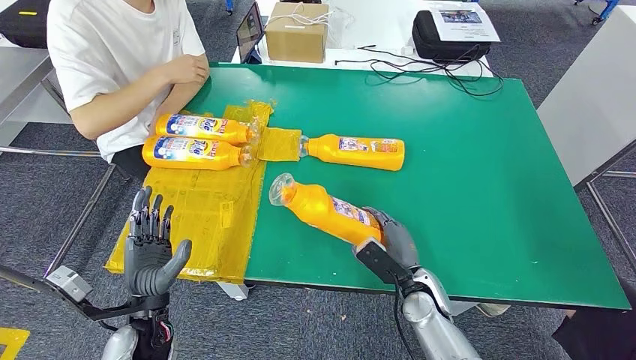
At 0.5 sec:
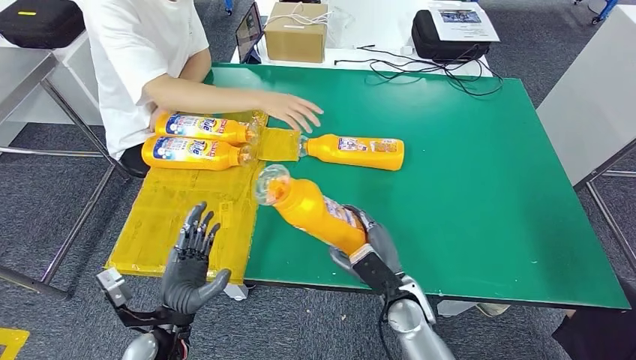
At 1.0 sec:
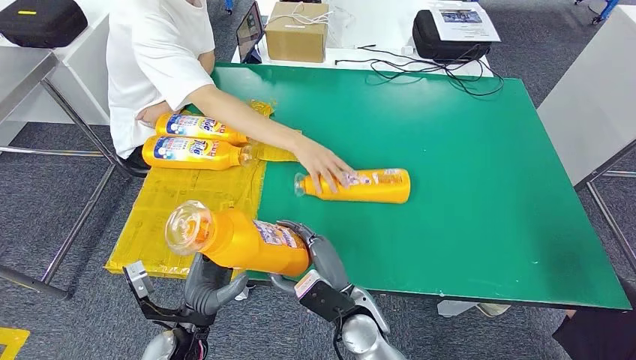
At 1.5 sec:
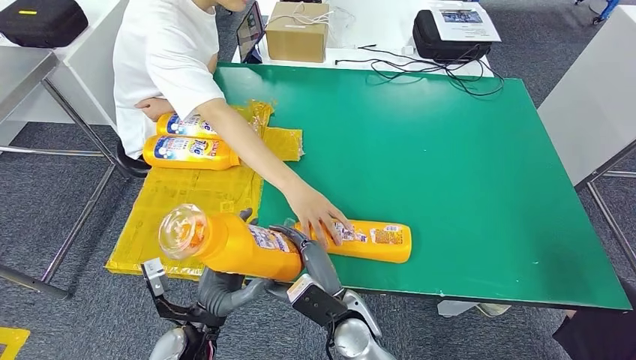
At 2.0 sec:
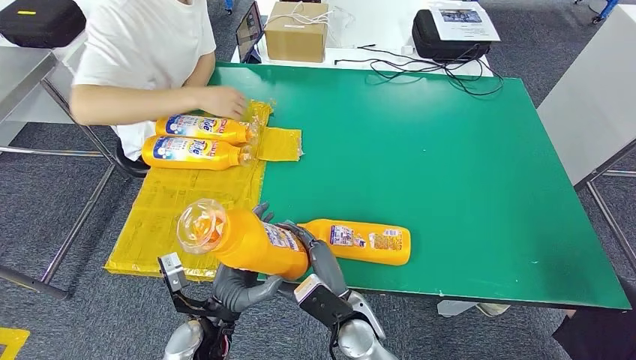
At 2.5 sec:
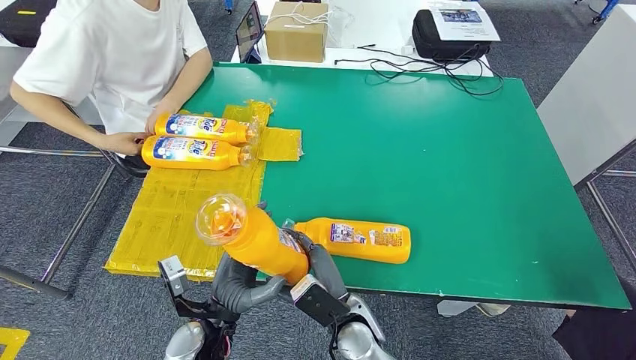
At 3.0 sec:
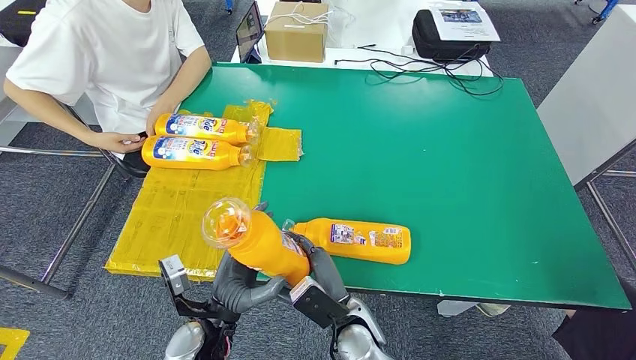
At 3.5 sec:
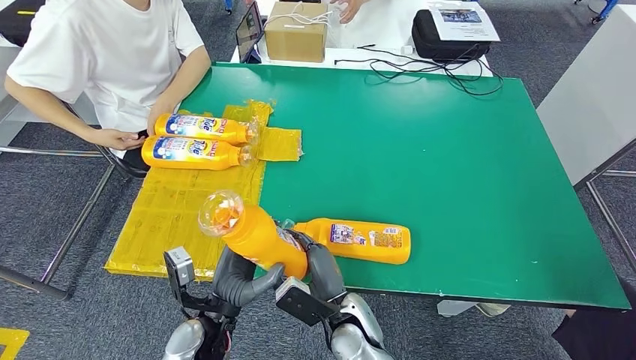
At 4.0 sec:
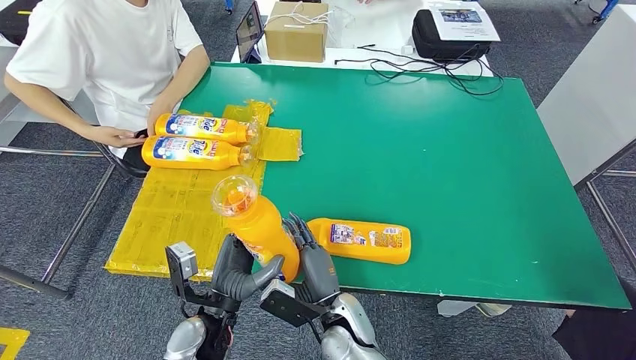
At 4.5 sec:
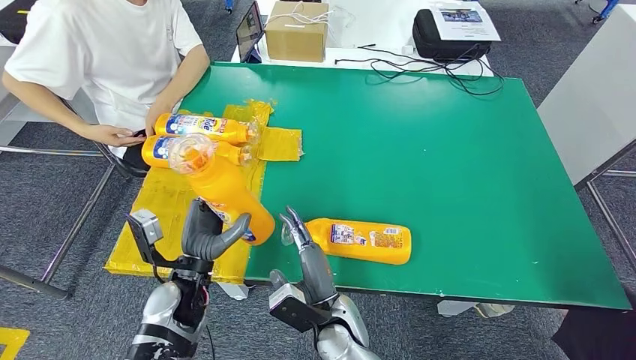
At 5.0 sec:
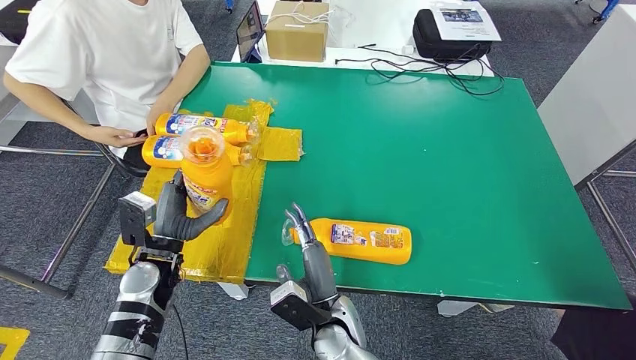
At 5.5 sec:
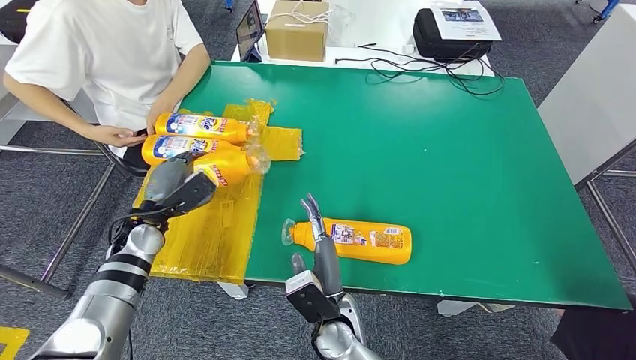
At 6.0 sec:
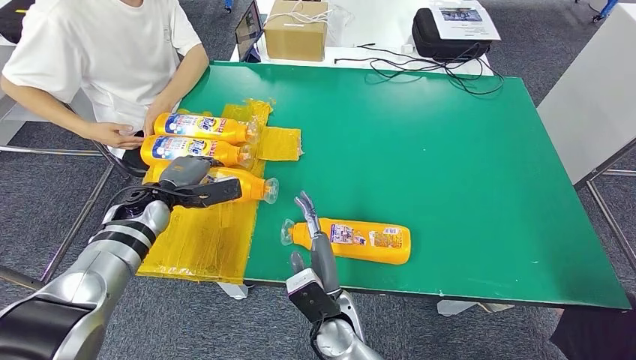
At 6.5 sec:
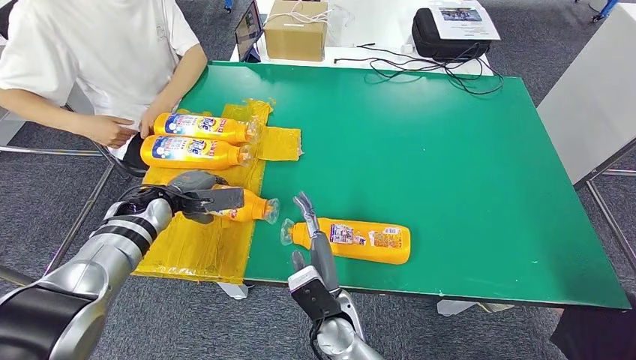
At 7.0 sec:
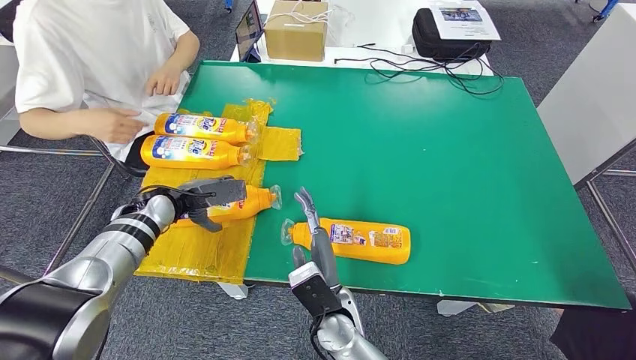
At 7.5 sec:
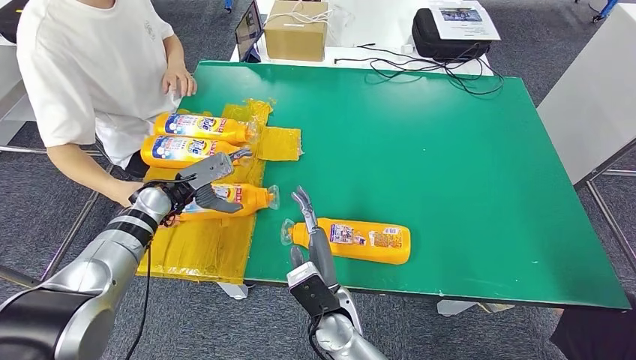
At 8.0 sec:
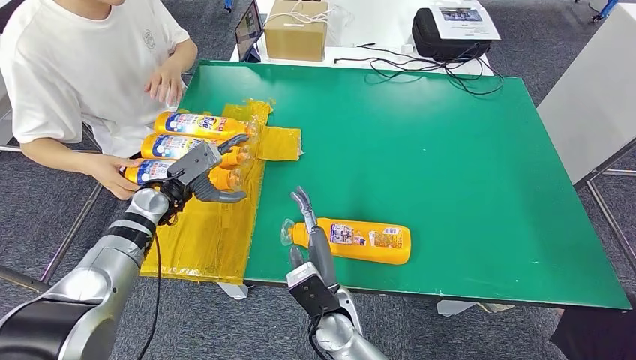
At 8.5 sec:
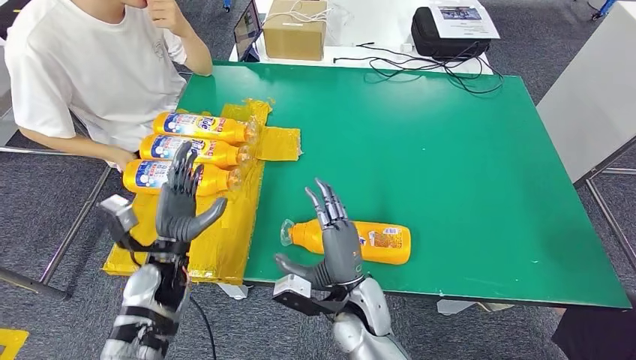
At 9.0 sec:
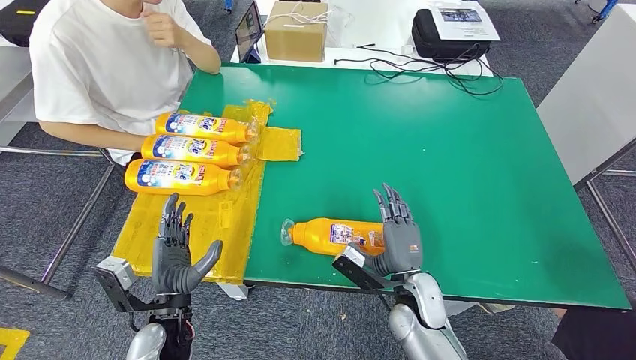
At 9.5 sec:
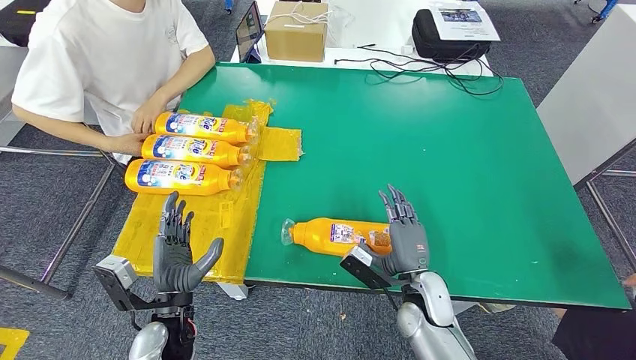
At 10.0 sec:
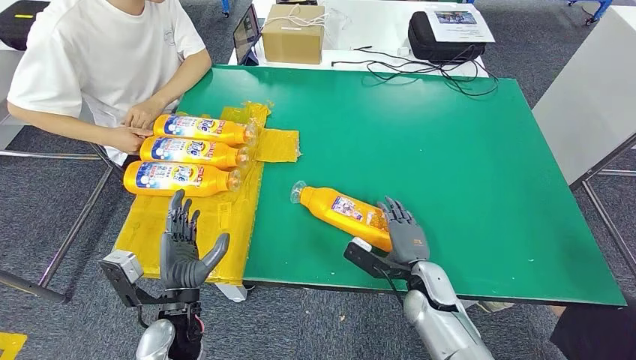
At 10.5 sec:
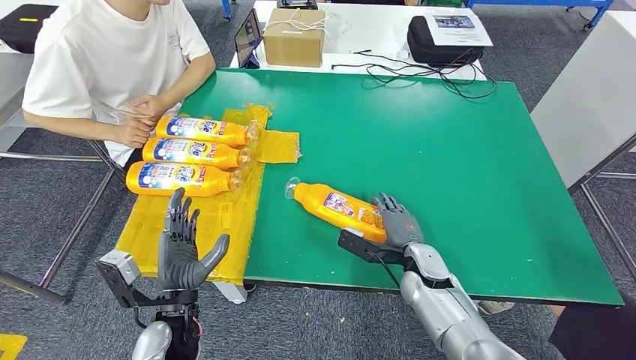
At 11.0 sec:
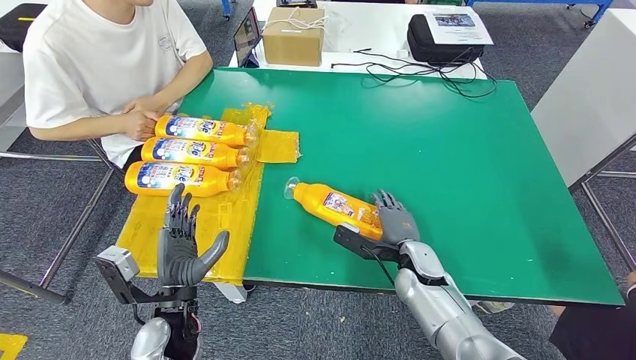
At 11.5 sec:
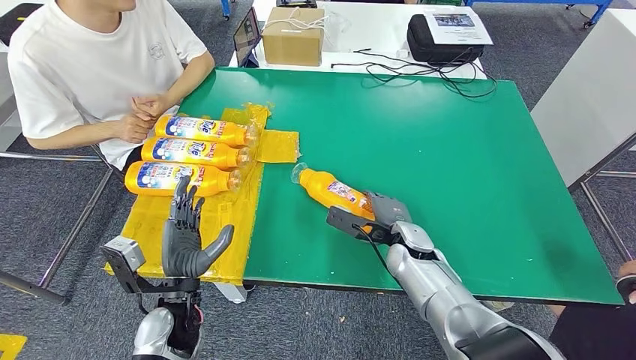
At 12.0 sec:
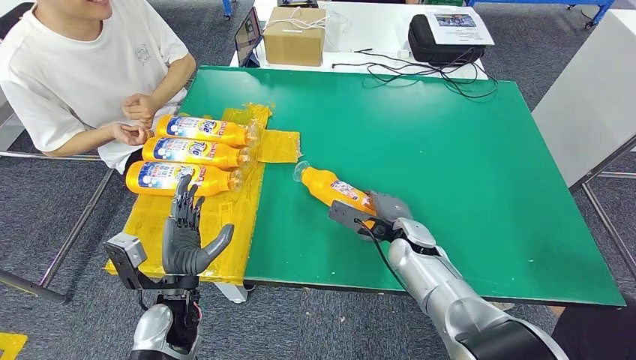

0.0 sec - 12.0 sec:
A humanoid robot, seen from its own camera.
Step, 1.5 sec - 6.0 sec: Flip the fast-moving consumer goods bottle to the front side.
4.0 sec - 6.0 sec: The left hand travels forward and to the left by some 25 cm.

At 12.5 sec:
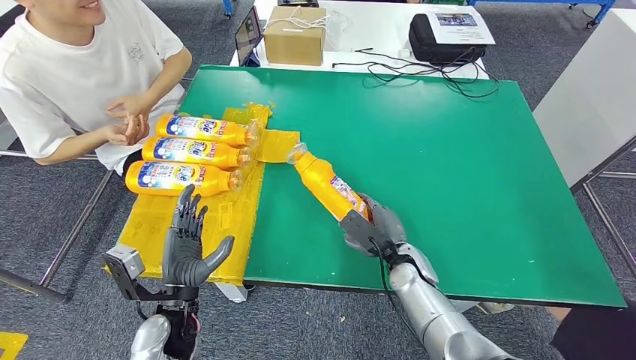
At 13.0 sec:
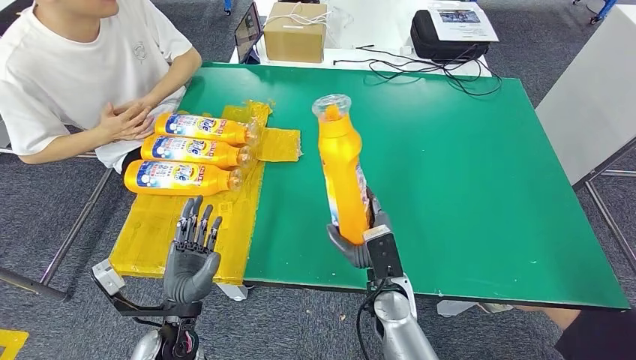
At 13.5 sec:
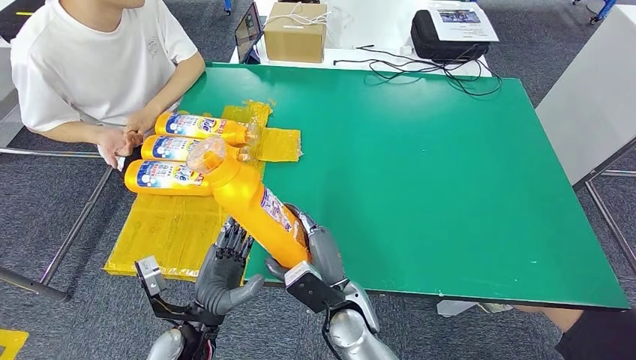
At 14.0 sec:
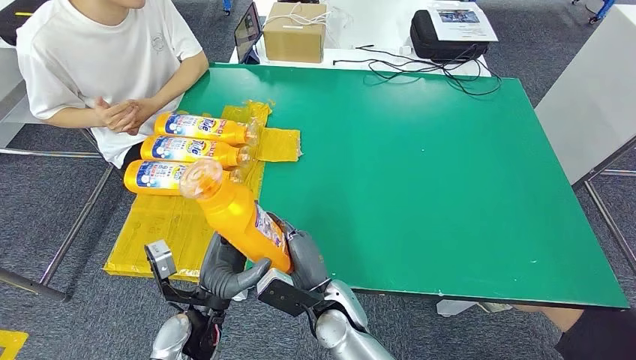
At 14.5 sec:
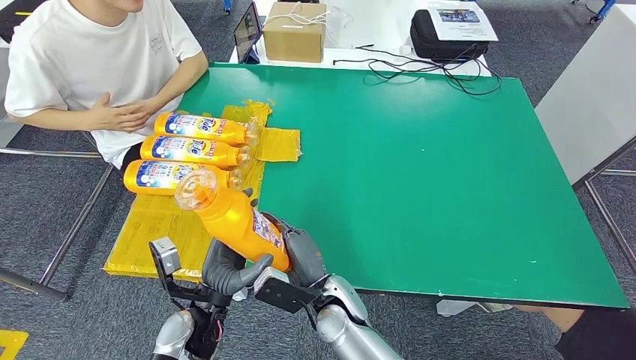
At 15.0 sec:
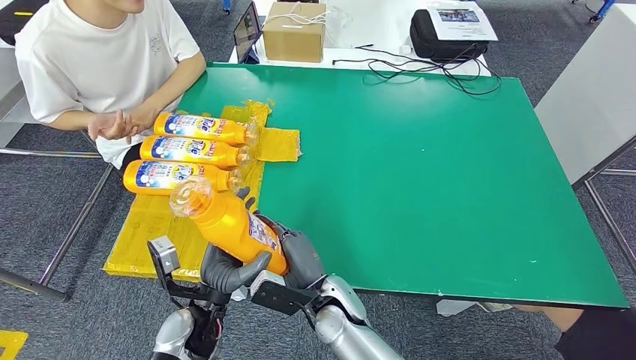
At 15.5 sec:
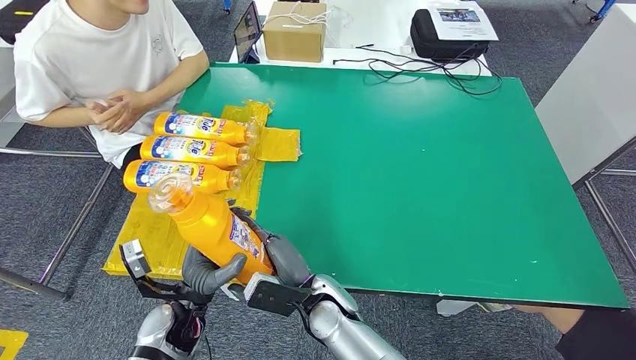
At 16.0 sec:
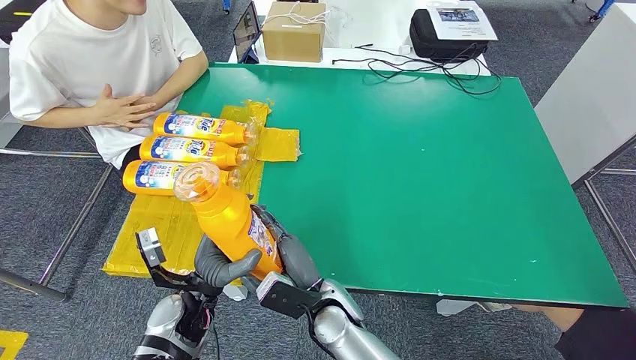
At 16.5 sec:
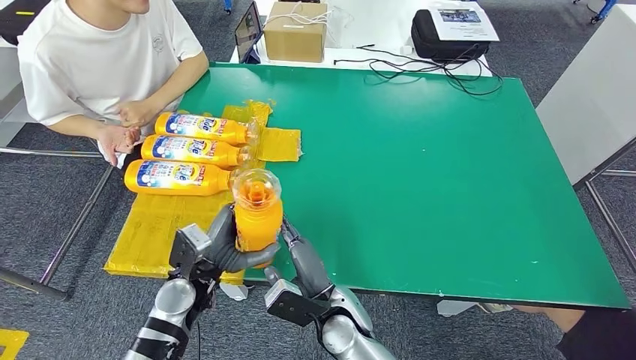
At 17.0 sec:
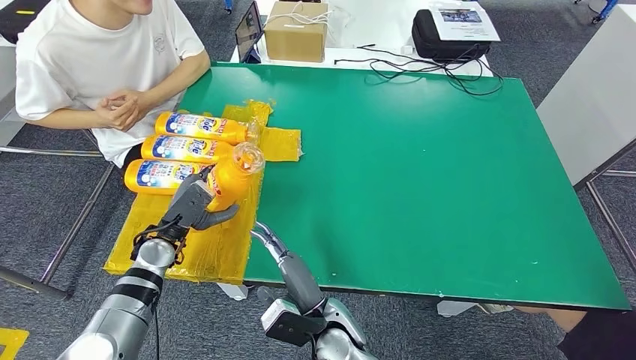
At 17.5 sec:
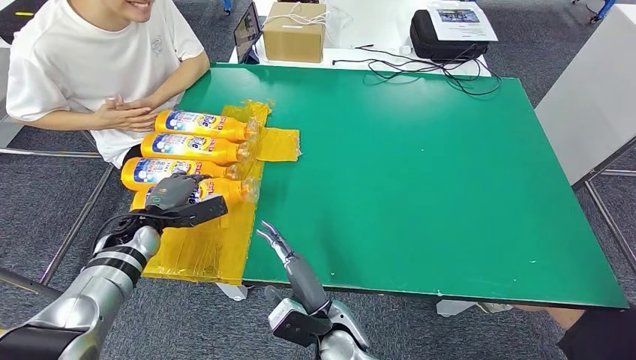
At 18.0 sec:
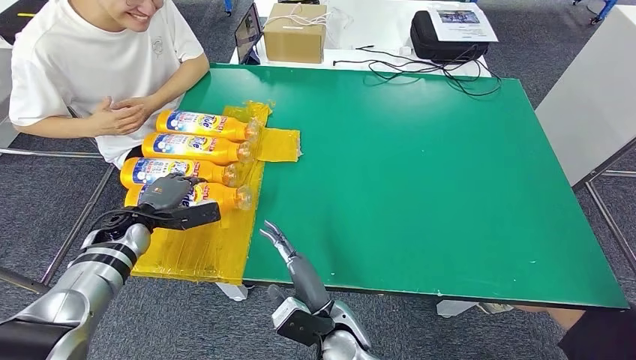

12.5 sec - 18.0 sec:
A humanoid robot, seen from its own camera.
Step, 14.5 sec - 18.0 sec: Flip the fast-moving consumer goods bottle to the front side.
14.5 sec - 16.0 sec: The hands make only small movements.

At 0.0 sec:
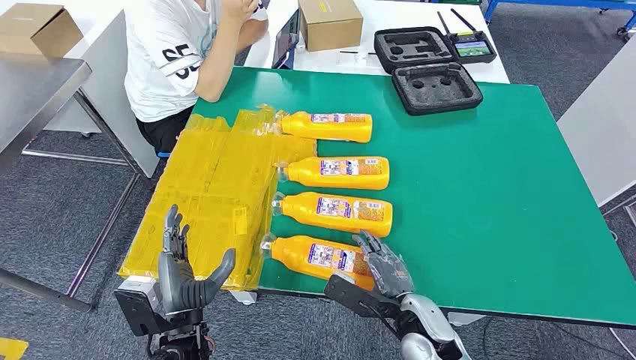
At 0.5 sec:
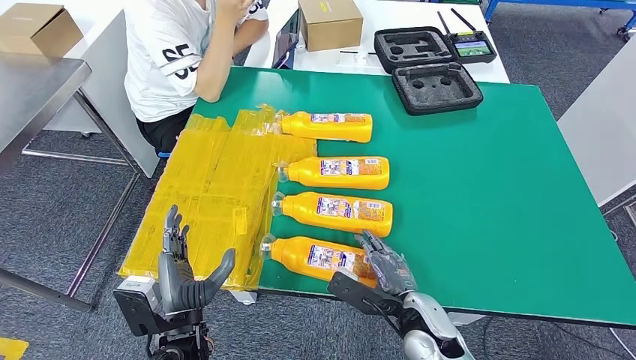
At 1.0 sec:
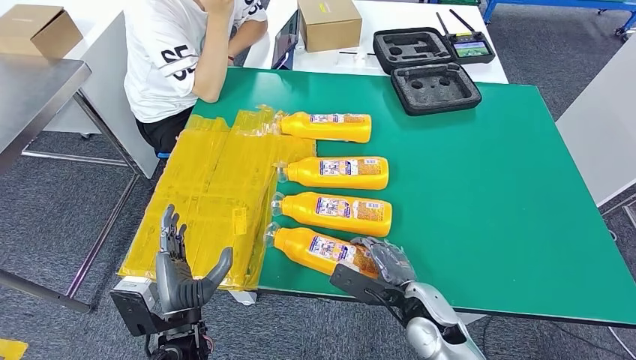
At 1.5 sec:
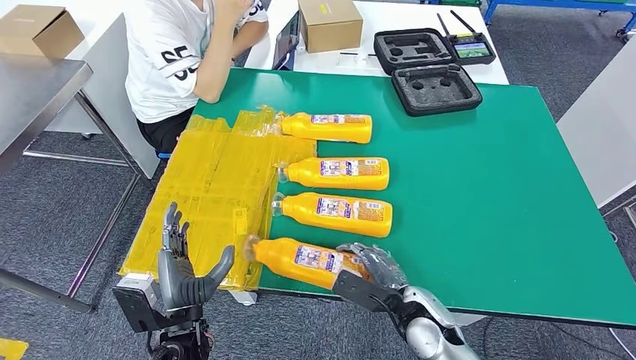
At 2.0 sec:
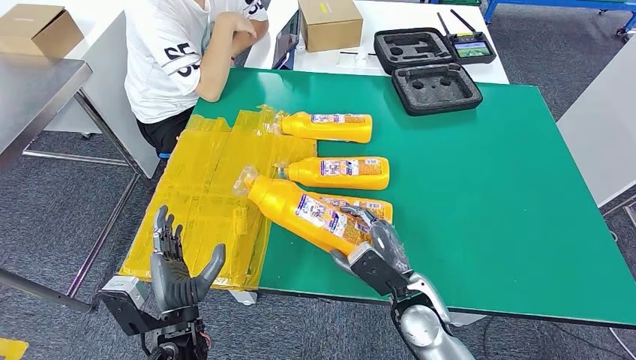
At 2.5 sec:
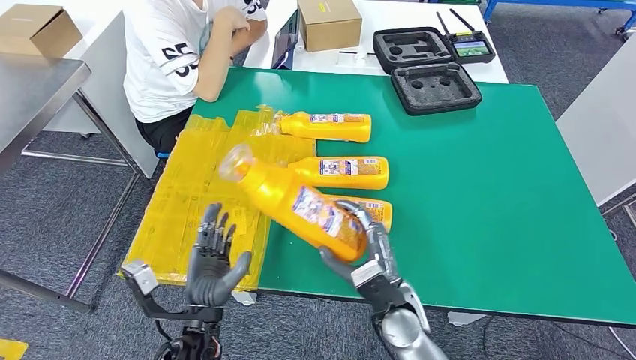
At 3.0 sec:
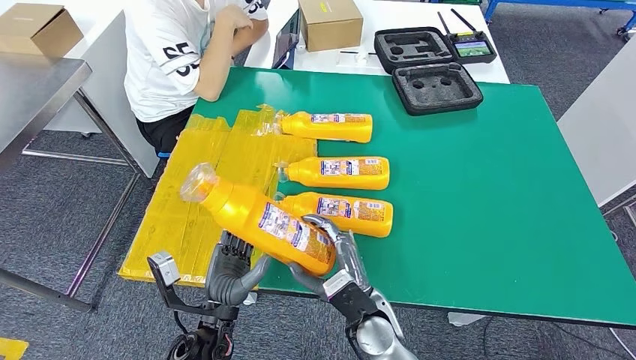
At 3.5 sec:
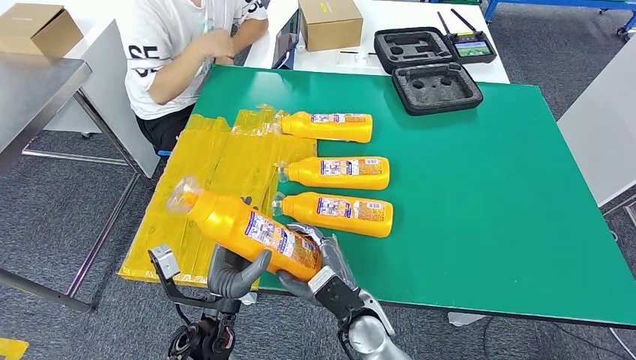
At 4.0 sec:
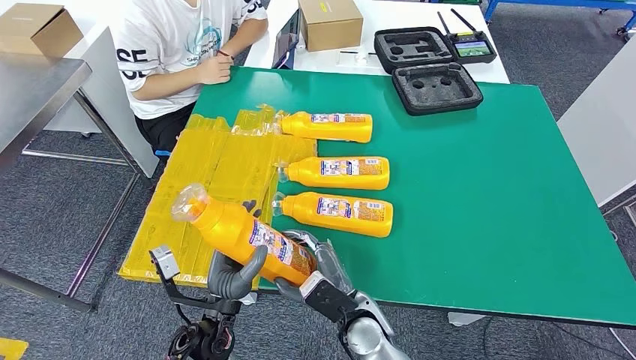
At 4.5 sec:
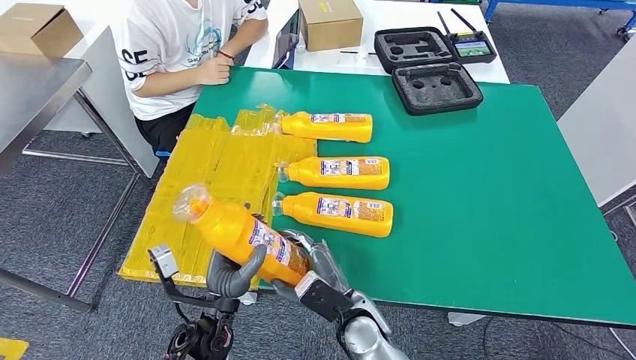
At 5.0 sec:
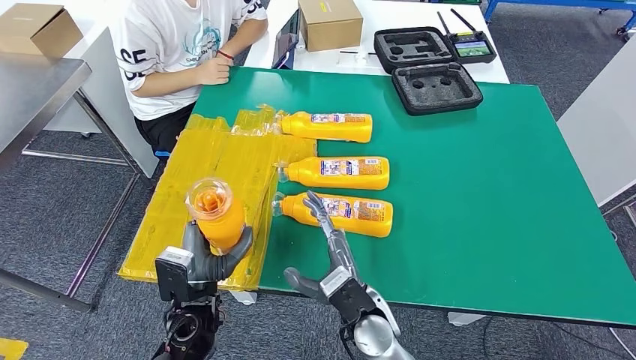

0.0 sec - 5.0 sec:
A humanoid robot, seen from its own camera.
Step, 0.0 sec - 2.5 sec: Take the fast-moving consumer goods bottle from the table.
2.5 sec - 5.0 sec: The right hand goes roughly 5 cm to the left.
